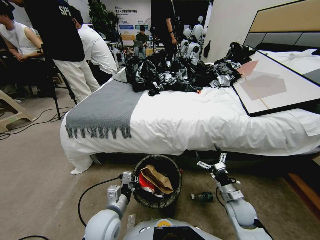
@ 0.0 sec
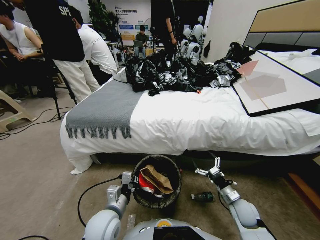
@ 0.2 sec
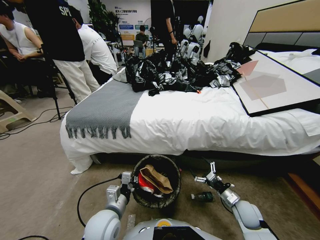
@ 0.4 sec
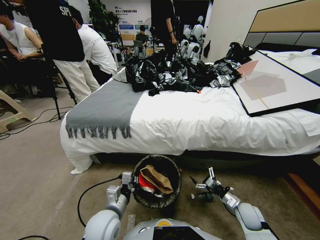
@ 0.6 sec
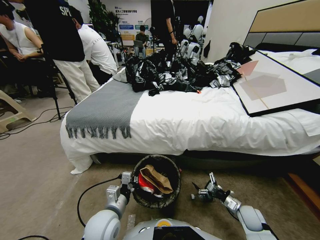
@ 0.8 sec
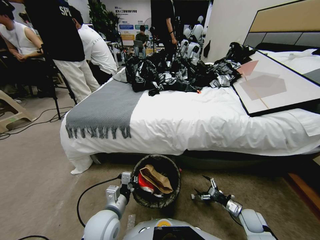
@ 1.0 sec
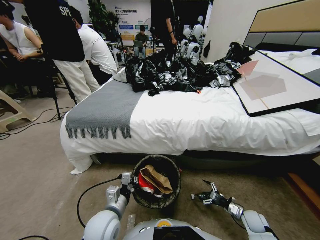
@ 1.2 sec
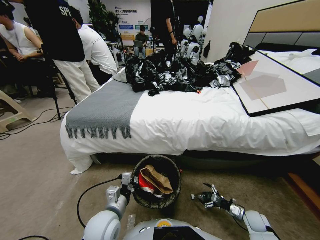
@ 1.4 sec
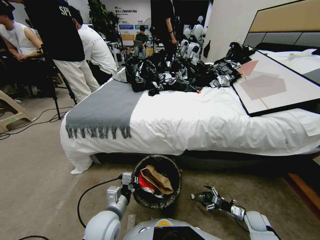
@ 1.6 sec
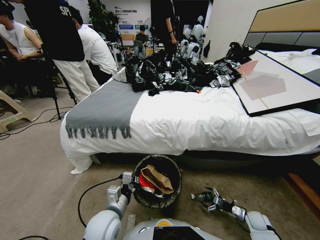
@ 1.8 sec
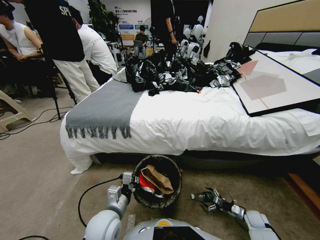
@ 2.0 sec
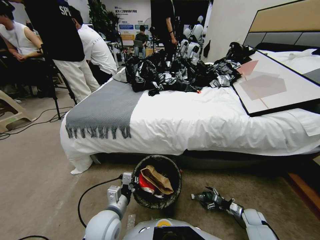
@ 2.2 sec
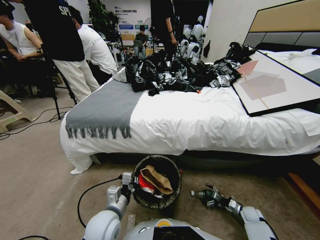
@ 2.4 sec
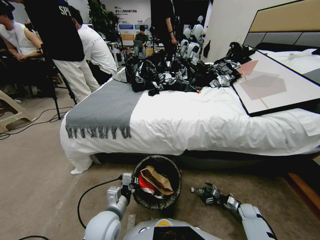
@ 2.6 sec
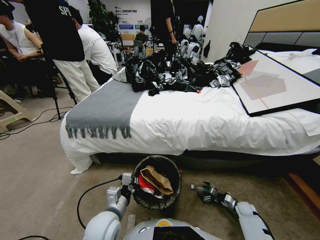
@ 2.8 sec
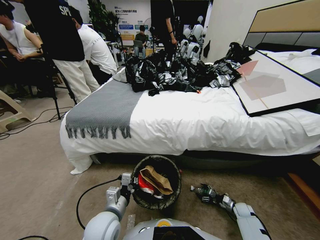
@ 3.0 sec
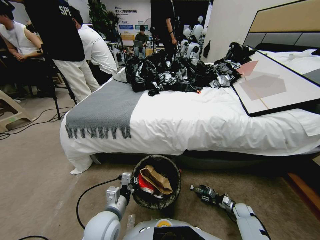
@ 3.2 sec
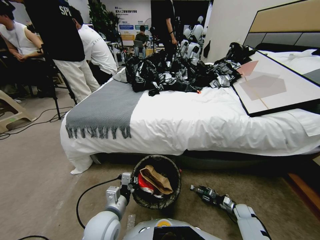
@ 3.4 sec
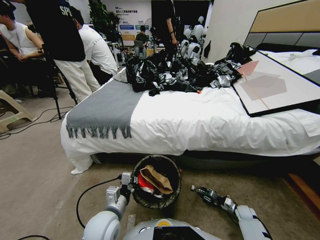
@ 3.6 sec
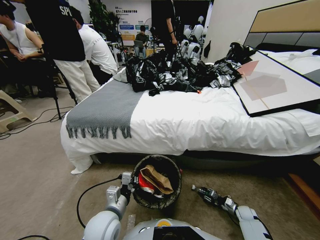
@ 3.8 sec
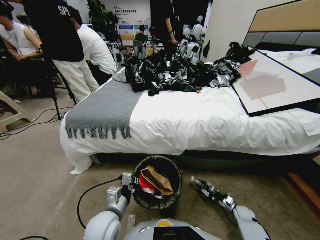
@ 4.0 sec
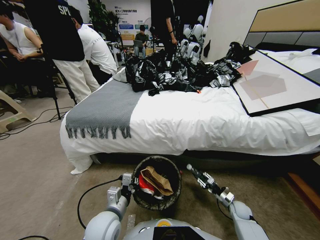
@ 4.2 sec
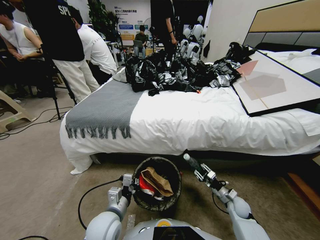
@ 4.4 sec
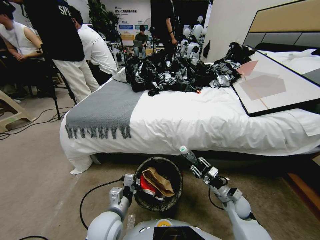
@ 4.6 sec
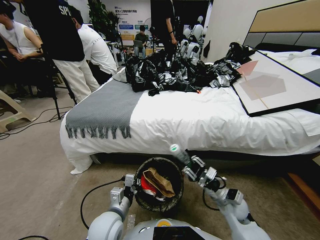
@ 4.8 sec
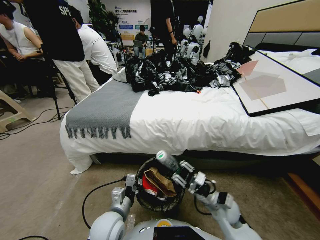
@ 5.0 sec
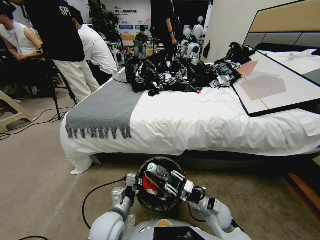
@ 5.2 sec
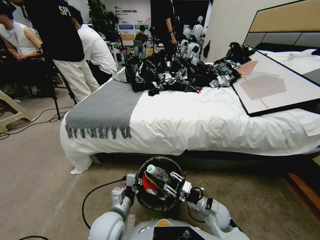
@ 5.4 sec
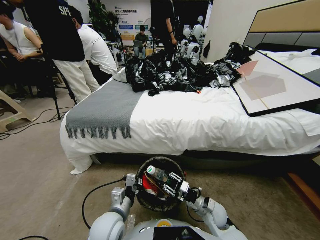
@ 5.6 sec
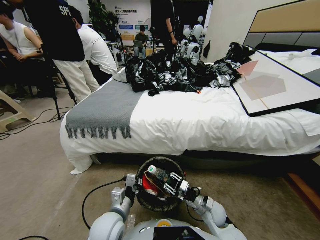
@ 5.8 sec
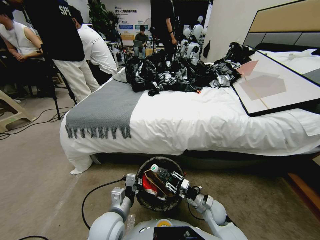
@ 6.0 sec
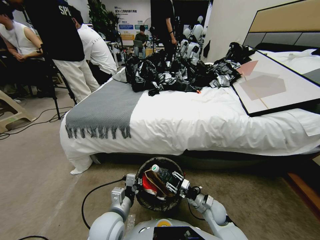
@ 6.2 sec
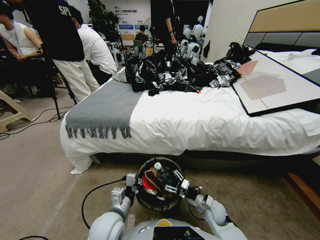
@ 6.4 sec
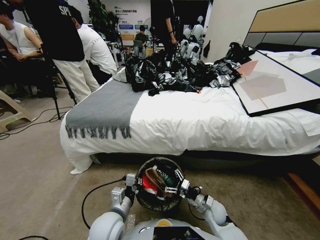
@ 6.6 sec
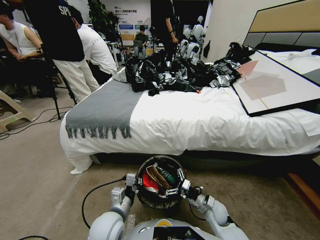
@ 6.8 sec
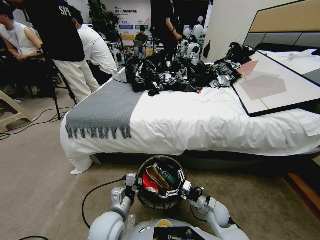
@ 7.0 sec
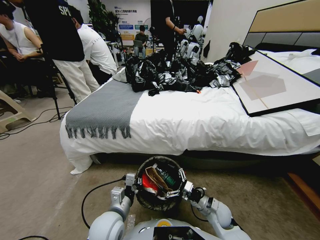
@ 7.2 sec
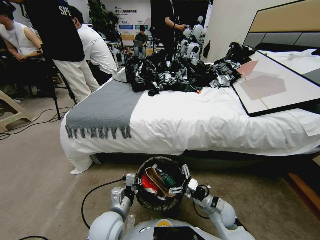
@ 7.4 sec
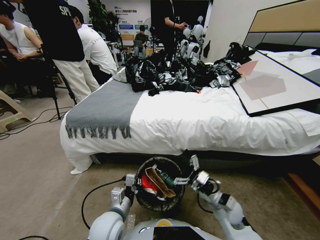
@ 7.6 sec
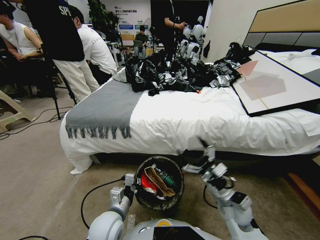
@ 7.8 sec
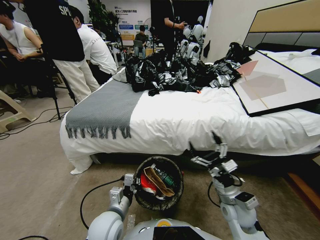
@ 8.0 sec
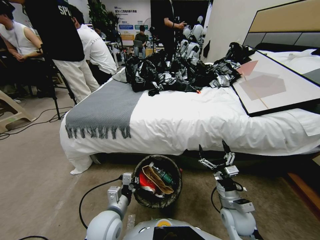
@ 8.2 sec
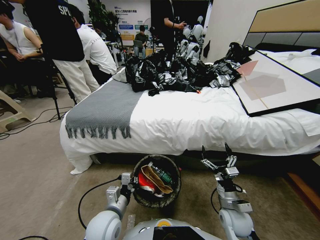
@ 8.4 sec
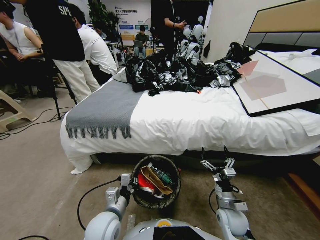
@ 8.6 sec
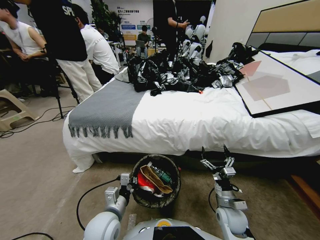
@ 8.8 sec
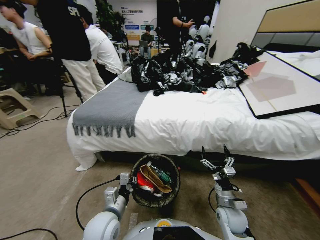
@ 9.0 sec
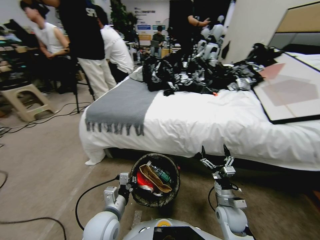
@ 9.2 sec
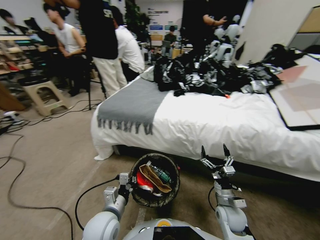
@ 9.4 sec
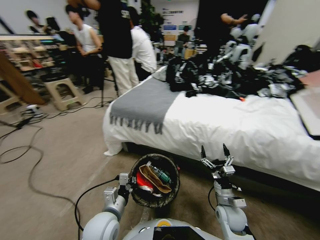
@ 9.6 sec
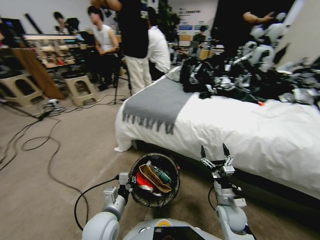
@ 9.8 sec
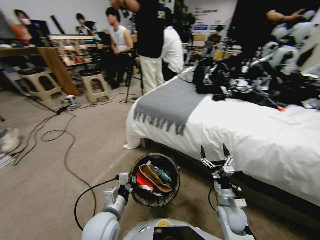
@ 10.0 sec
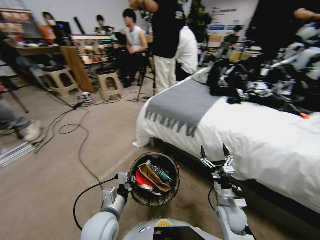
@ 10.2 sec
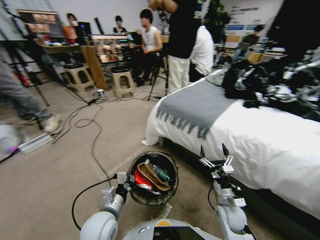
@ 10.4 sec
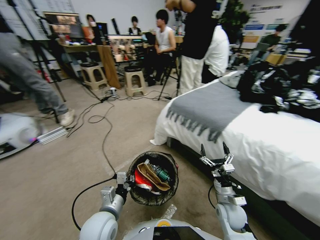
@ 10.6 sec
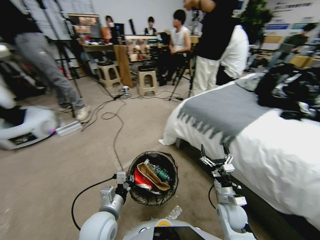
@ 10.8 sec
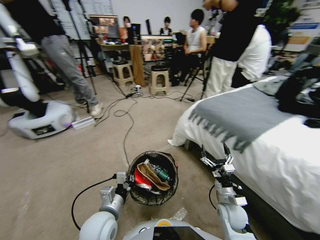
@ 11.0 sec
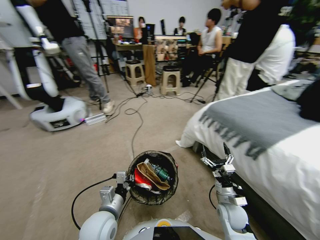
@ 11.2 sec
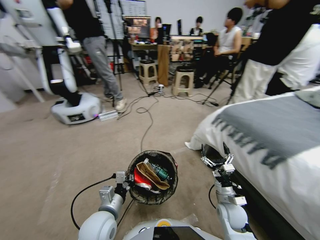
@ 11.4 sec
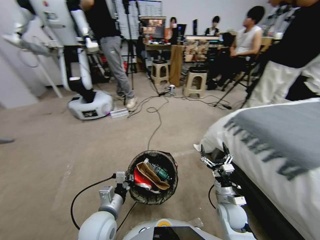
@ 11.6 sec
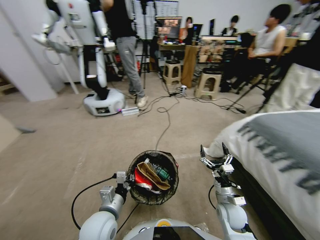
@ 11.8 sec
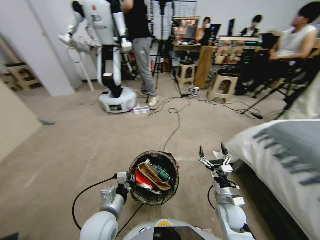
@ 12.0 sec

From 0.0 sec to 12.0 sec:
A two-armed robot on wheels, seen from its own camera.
Task of the whole recording: Pick up the trash bin, then pick up the garbage from the floor and place it into the trash bin.
From 0.0 sec to 1.6 sec: The right gripper moves to the right and downward, some 20 cm.
From 1.6 sec to 3.0 sec: The right gripper moves downward, roughly 5 cm, and closes up.
From 3.0 sec to 4.4 sec: The right gripper heads upward and to the left, covering approximately 25 cm.
From 4.4 sec to 6.0 sec: The right gripper goes about 10 cm to the left.
From 6.0 sec to 7.6 sec: The right gripper travels upward by some 10 cm, and opens its fingers.
From 7.6 sec to 9.0 sec: The right gripper goes about 5 cm downward.

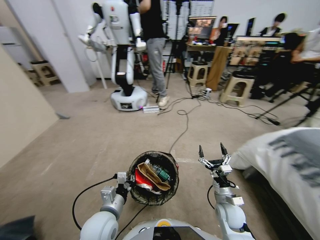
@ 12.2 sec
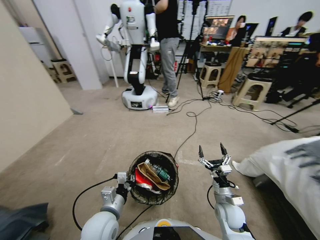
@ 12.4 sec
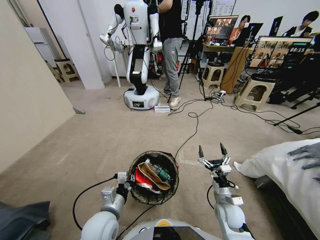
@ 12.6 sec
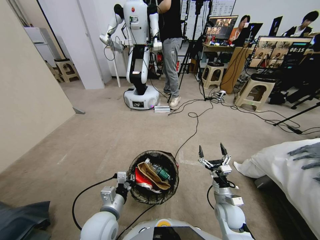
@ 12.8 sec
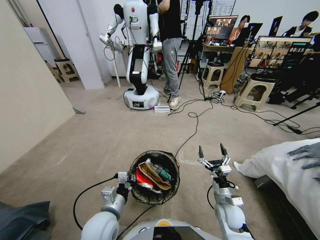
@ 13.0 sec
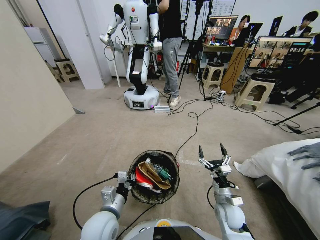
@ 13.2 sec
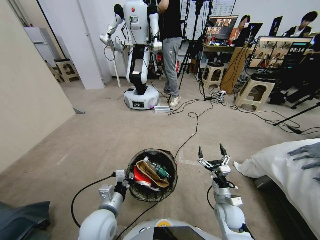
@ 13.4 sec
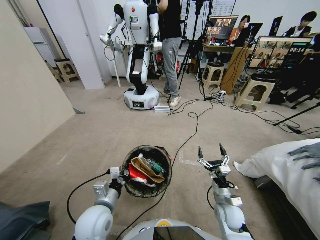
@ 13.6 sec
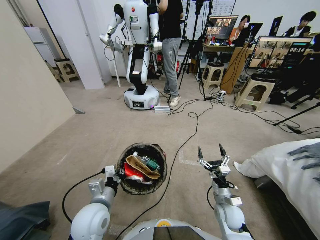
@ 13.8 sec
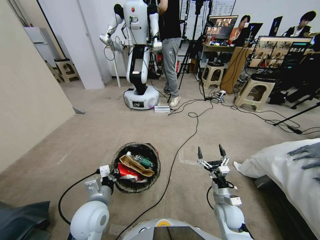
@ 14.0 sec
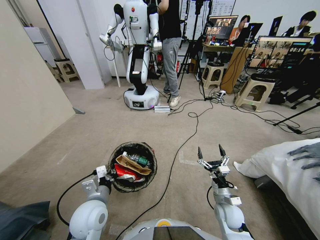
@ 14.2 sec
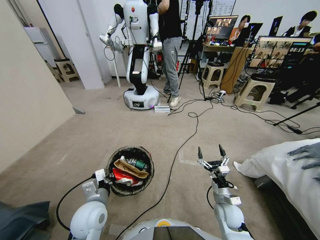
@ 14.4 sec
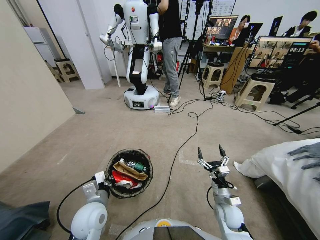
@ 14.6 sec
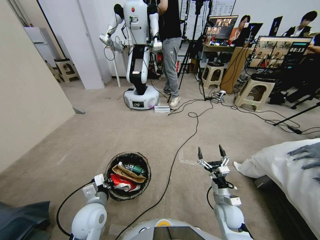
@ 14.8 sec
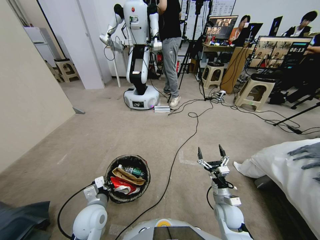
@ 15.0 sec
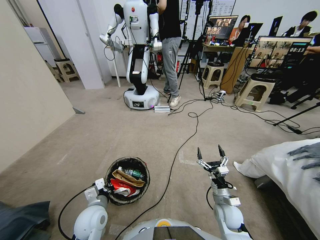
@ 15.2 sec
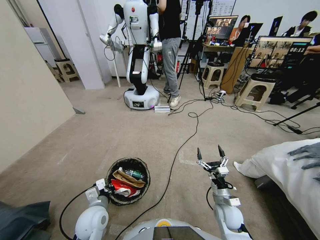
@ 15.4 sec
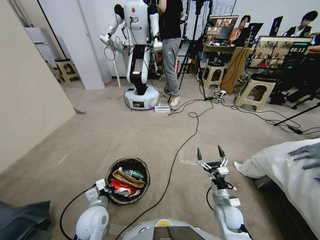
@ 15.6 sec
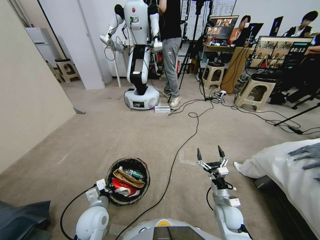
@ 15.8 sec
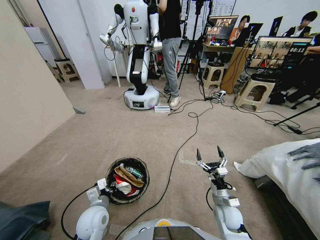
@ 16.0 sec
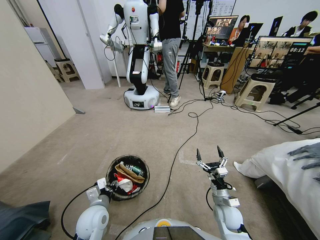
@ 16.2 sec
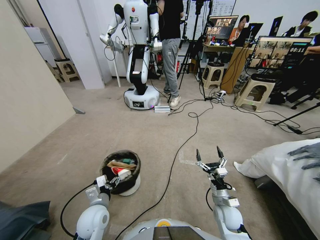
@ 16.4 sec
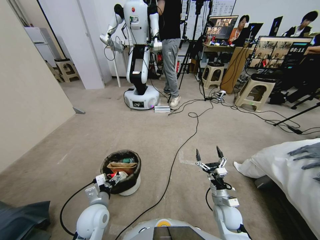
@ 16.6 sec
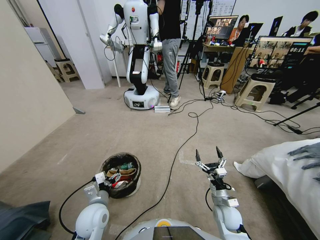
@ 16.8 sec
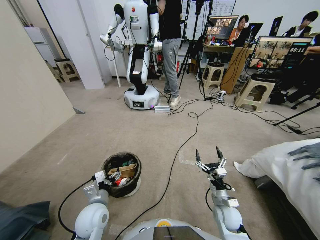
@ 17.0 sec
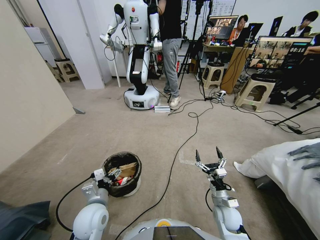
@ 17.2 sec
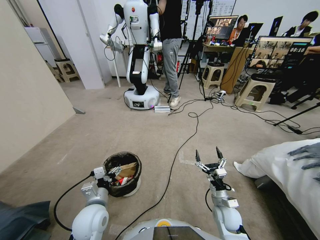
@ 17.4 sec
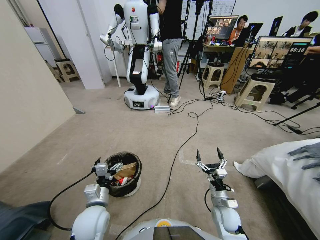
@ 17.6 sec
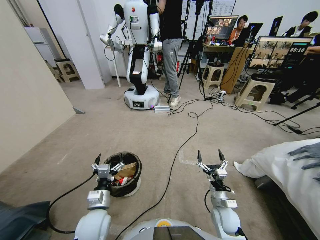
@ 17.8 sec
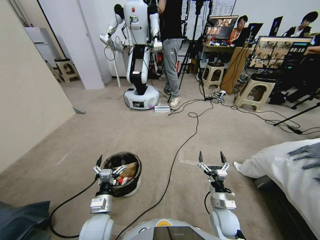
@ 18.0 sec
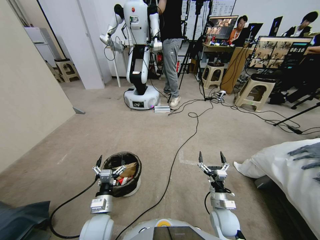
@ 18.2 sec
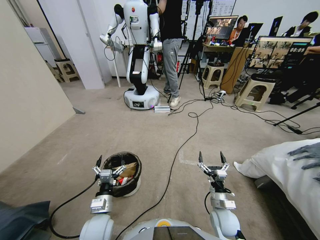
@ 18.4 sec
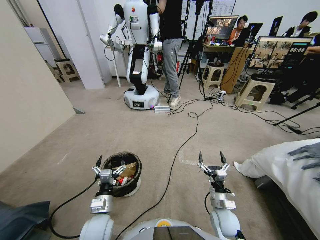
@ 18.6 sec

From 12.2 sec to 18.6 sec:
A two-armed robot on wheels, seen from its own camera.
Task of the whole recording: Pick up the trash bin, then pick up the garbage from the floor and place it into the trash bin.
From 13.8 sec to 15.4 sec: The left gripper is displaced downward by some 10 cm.
From 15.4 sec to 17.0 sec: The left gripper opens its fingers.
